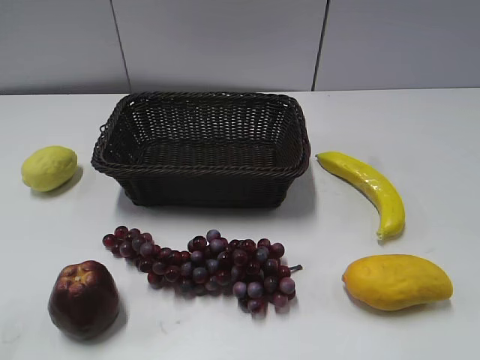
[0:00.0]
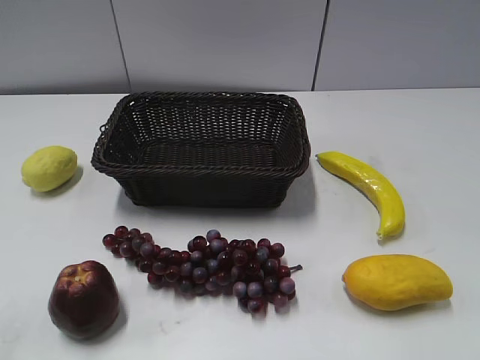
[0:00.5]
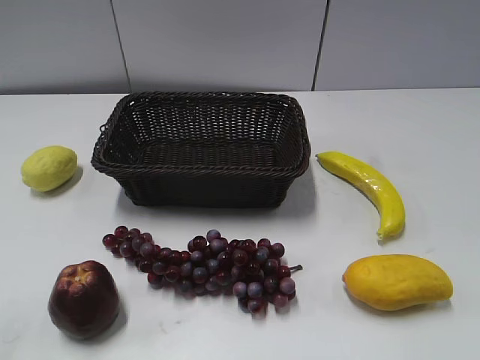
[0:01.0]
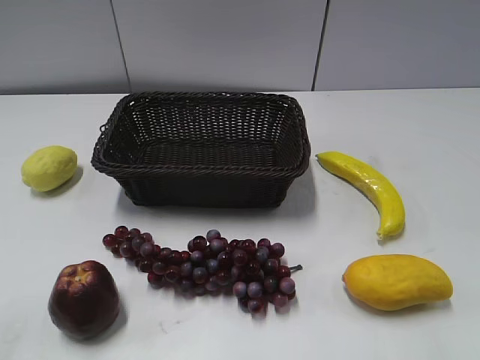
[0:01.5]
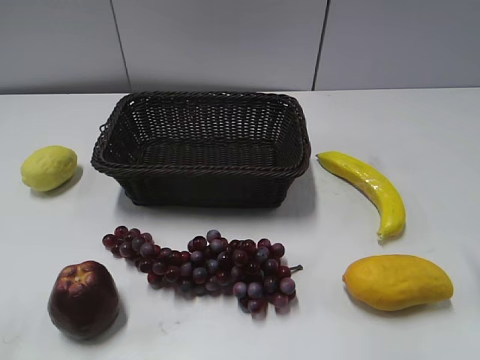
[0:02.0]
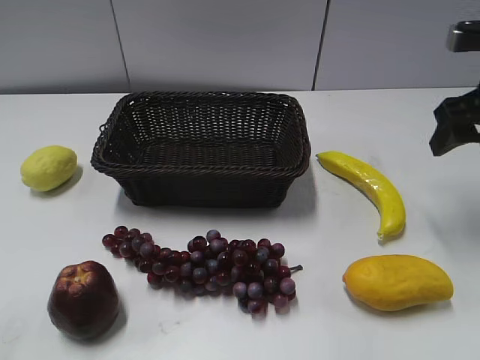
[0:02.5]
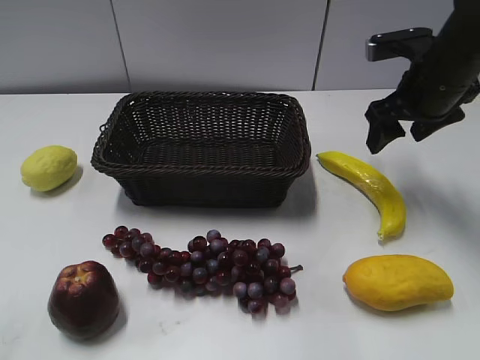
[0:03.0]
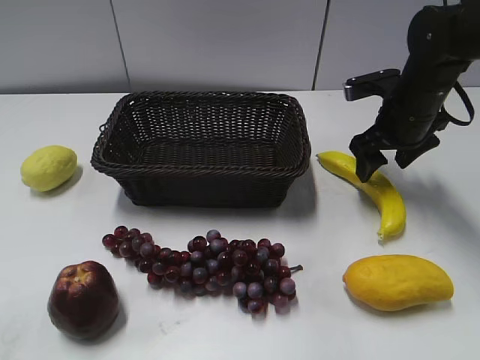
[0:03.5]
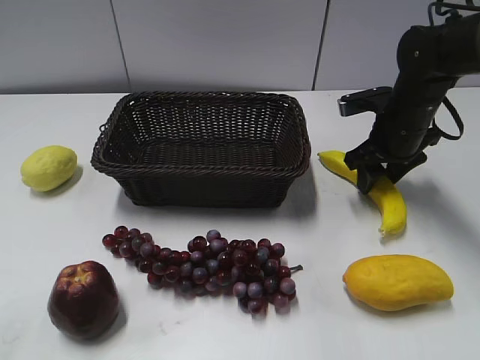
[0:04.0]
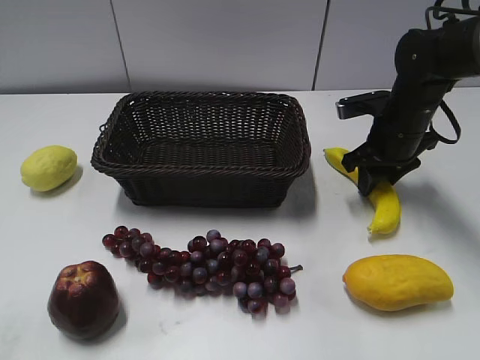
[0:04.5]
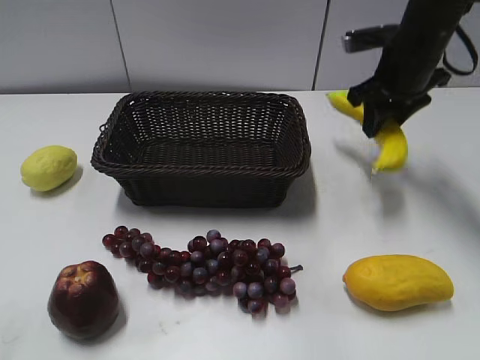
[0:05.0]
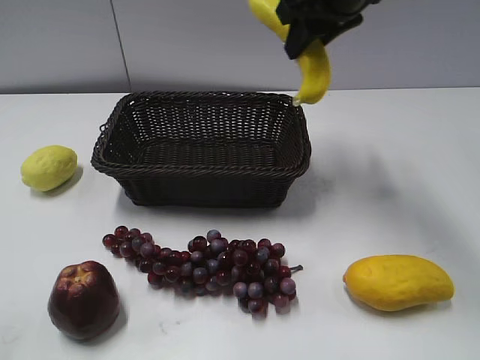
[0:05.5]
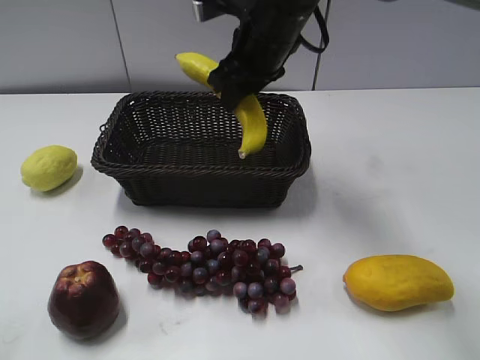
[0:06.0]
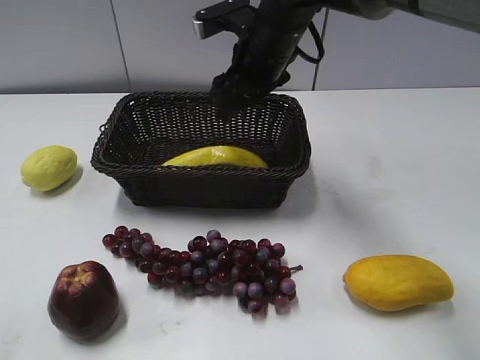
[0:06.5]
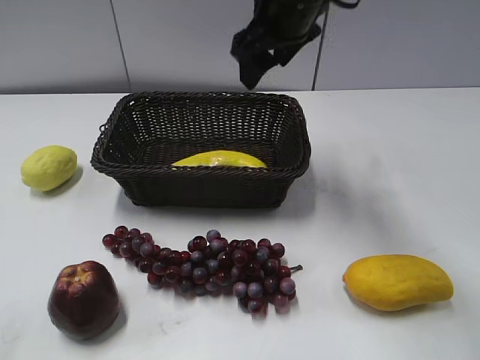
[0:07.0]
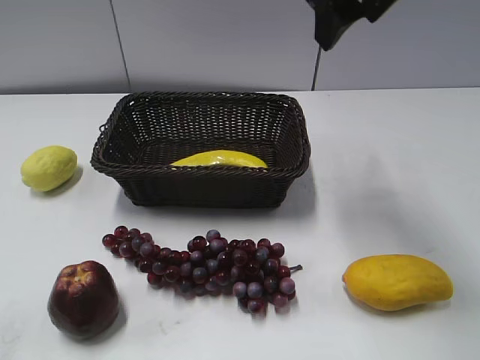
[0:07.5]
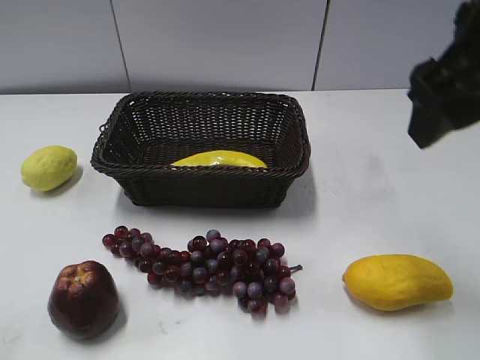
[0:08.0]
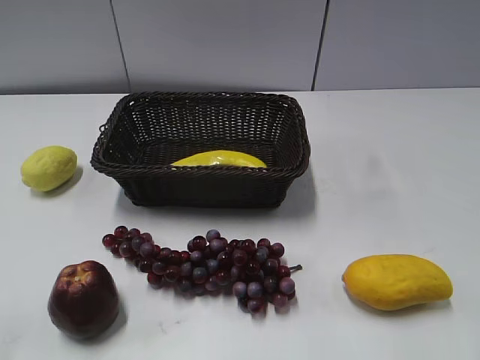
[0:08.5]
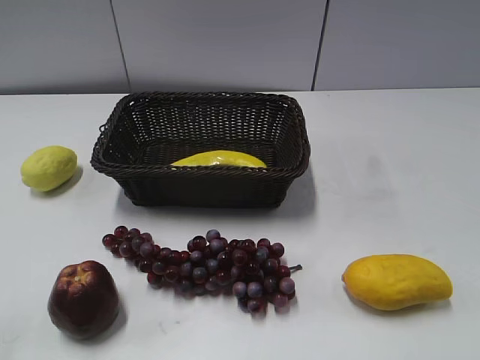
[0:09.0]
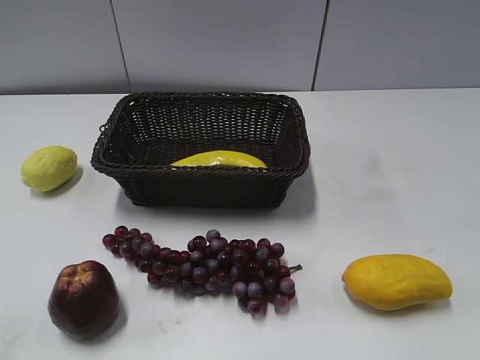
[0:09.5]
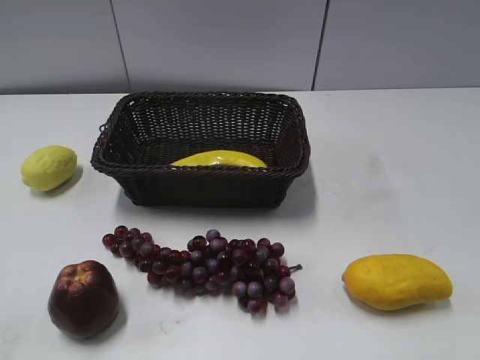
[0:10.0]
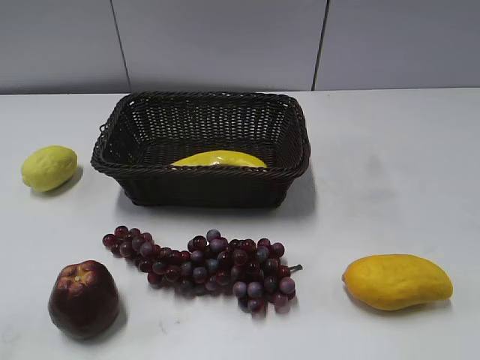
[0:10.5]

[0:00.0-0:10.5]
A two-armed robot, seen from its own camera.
Step, 0:02.5 to 0:04.0: Grasp the banana with right gripper.
Step, 0:04.5 to 0:06.0: Place the banana in the basket with right gripper.
0:02.0 to 0:04.0: The right gripper goes approximately 25 cm forward, downward and to the left, and closes its fingers.
0:04.0 to 0:06.5: The right gripper moves to the left and upward, about 20 cm, and opens its fingers.
0:06.5 to 0:08.5: The right gripper heads backward and to the right, covering approximately 35 cm.

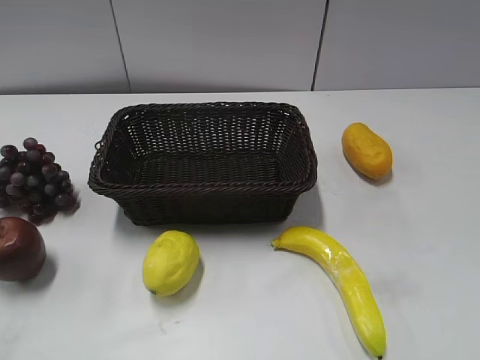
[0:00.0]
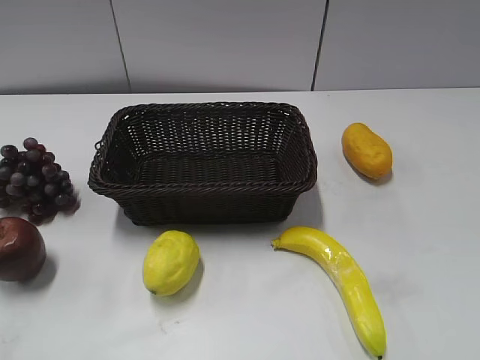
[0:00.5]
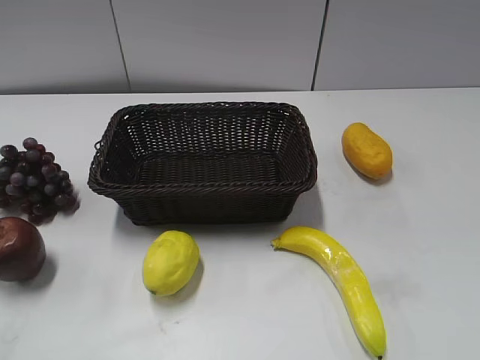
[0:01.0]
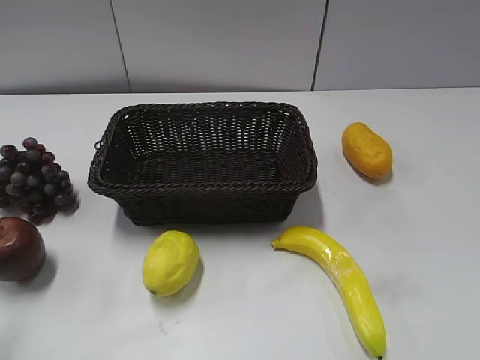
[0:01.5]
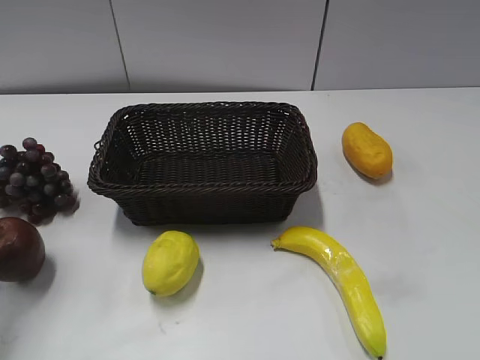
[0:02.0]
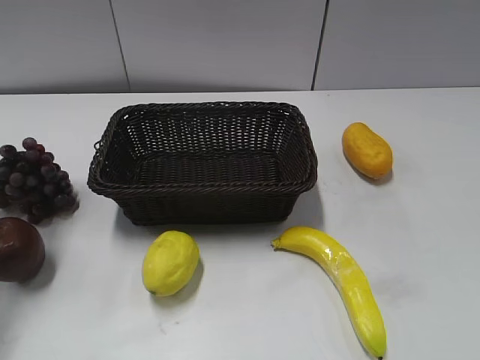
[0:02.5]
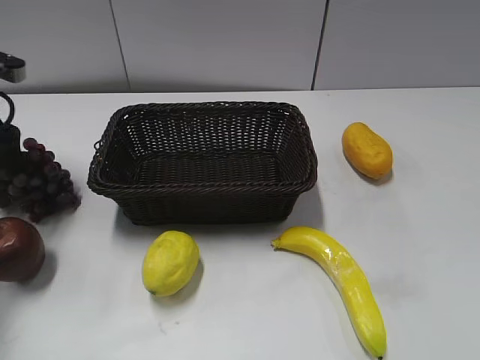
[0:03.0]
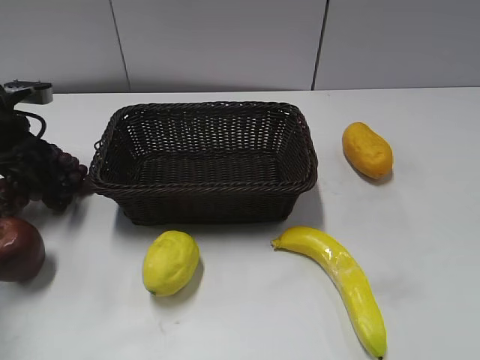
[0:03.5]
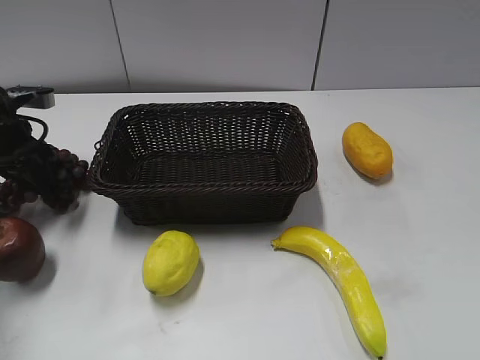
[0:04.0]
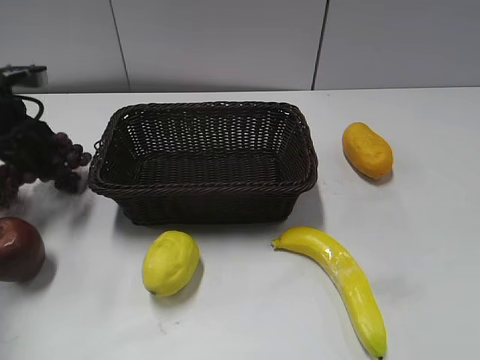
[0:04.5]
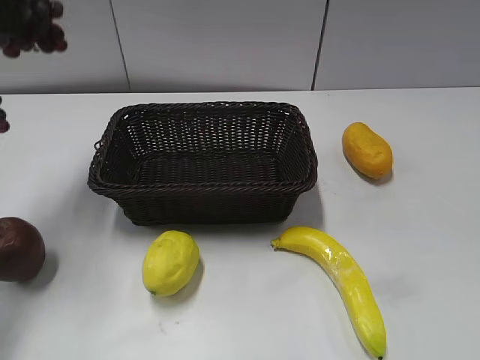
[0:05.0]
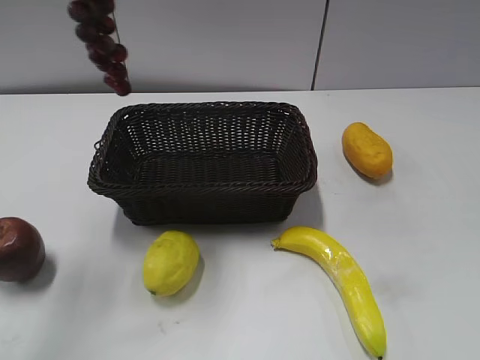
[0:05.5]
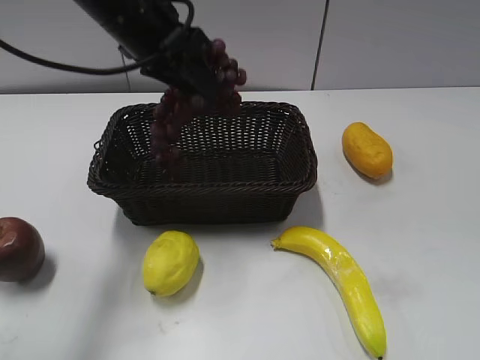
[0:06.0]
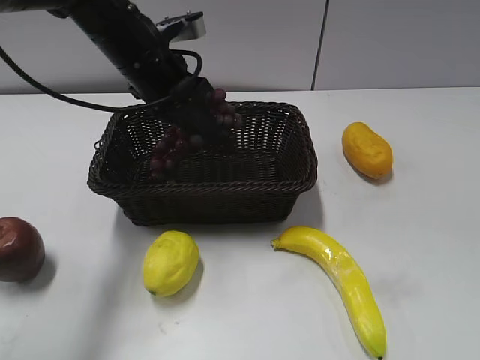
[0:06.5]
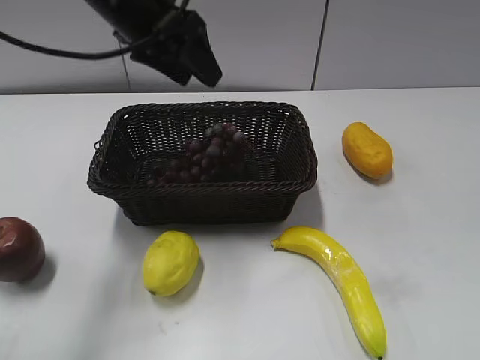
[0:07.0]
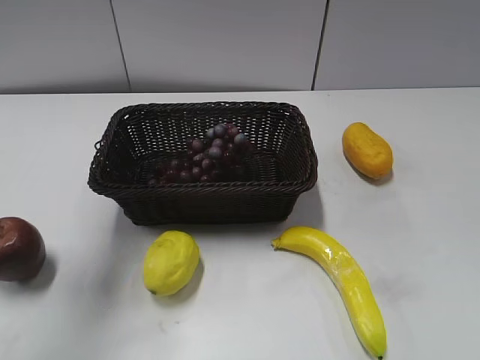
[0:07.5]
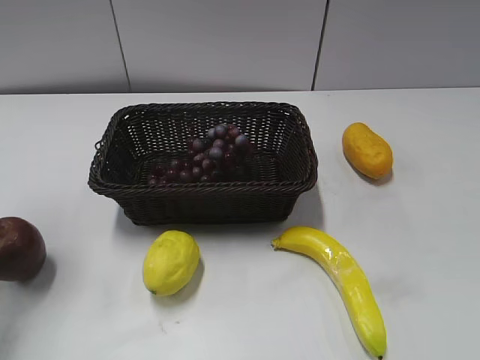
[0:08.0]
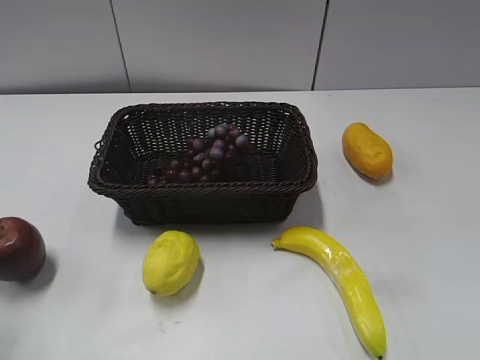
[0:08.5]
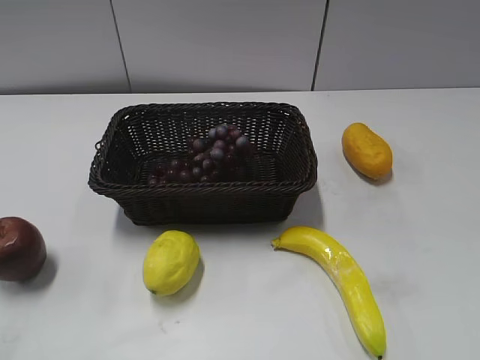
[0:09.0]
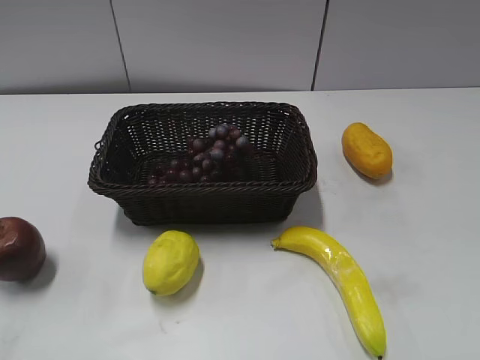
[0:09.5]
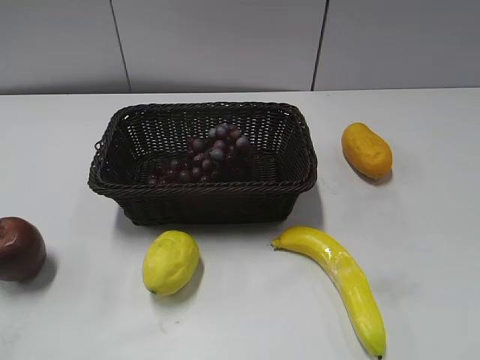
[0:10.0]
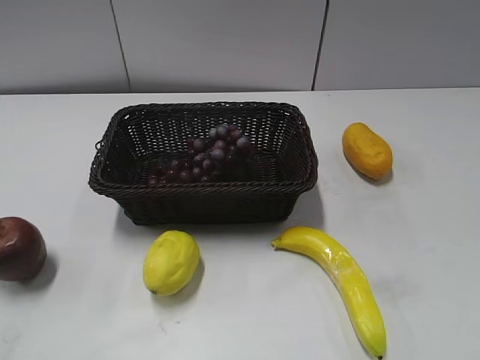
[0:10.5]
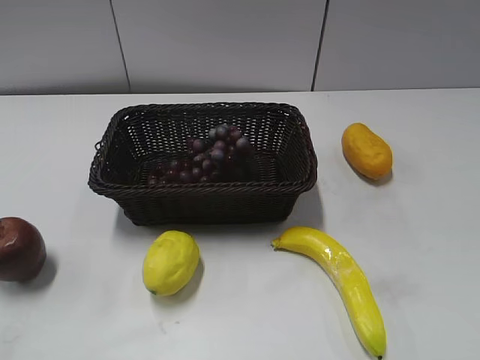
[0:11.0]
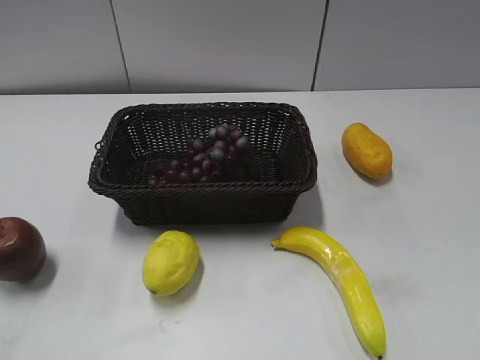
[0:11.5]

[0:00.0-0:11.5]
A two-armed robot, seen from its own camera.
Step, 0:02.5 to 0:04.0: Grasp the grape with left gripper.
Step, 0:04.5 to 0:07.0: Place the grape in the basket with left gripper.
0:02.0 to 0:04.0: The left gripper is displaced downward and forward by about 25 cm, and closes.
0:04.0 to 0:06.0: The left gripper travels to the right and upward by about 25 cm.
0:06.0 to 0:07.5: The left gripper moves upward and to the left, about 20 cm, and opens its fingers.
0:07.5 to 0:09.5: The left gripper goes approximately 40 cm backward and downward.

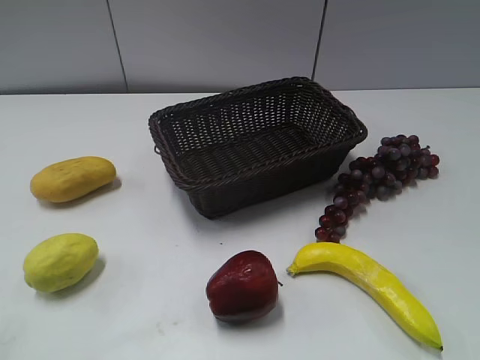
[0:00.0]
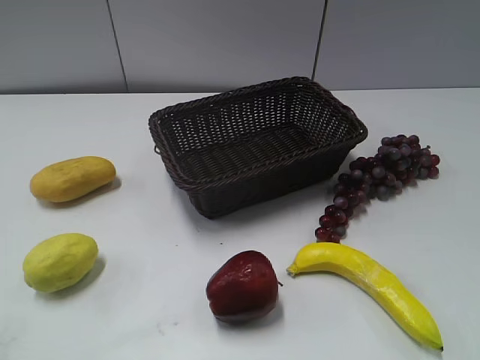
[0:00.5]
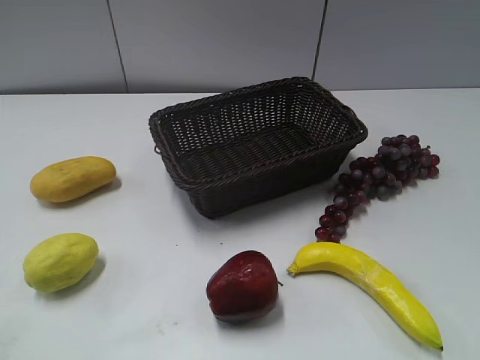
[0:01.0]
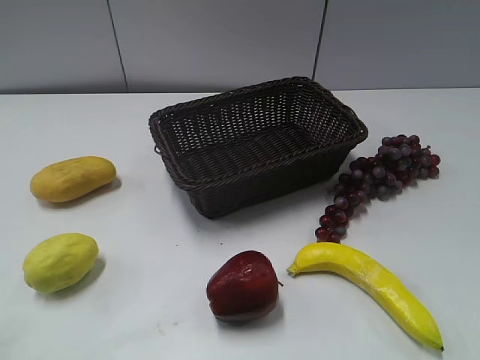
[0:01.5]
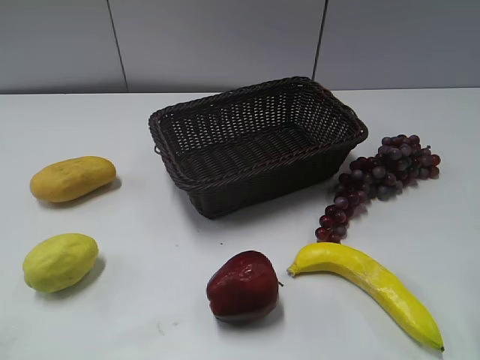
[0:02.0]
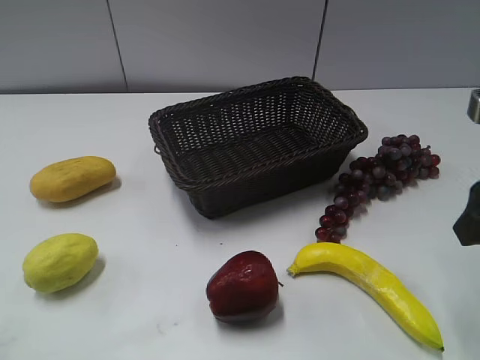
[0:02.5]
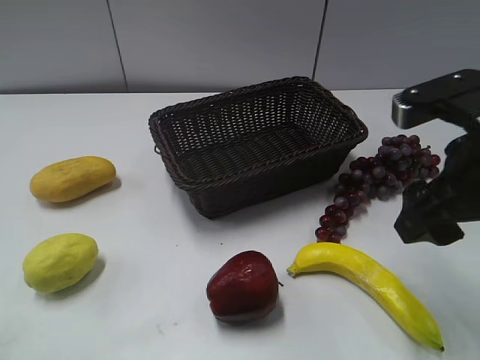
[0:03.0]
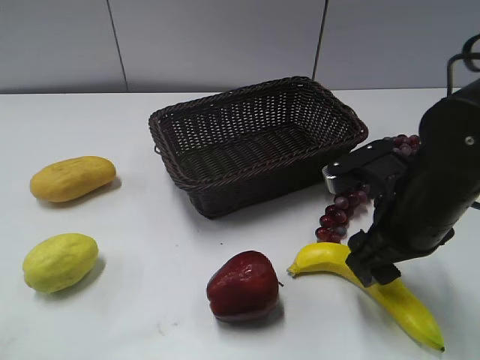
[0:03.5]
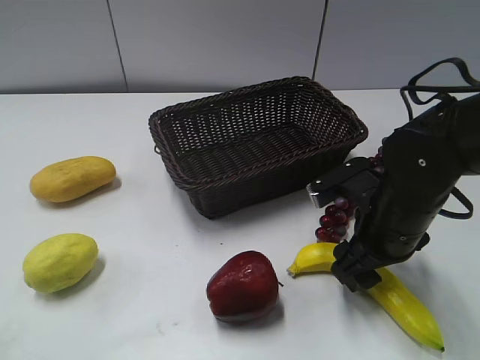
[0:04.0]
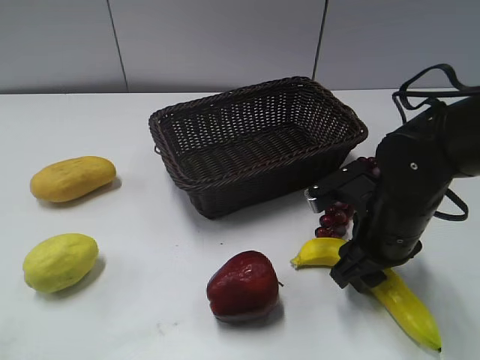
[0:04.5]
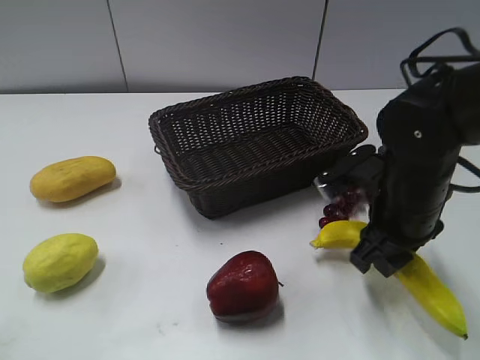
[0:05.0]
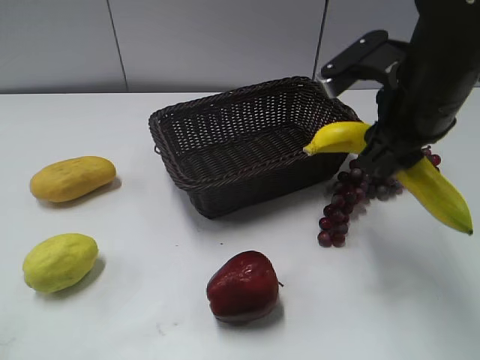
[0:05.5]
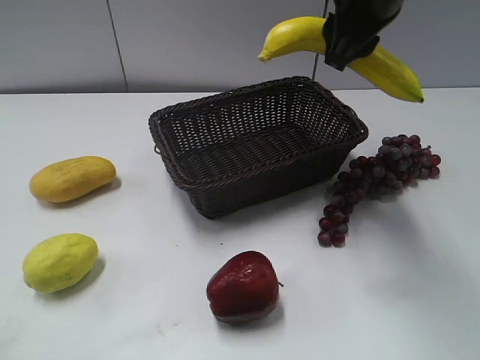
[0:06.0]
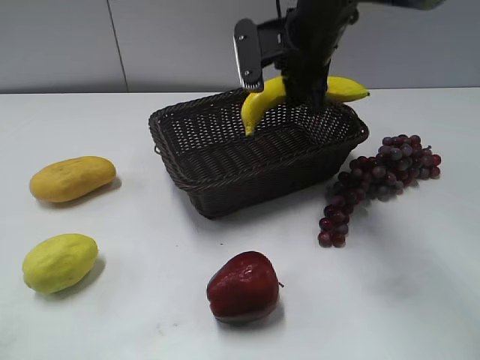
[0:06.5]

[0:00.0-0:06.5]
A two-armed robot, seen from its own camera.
Step, 0:02.0 to 0:04.5: Grasp the banana with right gripper.
0:02.0 to 0:04.5: The right gripper heads downward, to the left and forward, covering about 20 cm, and closes its fingers.
0:04.5 to 0:06.5: The right gripper shifts about 20 cm forward, upward and to the left.
